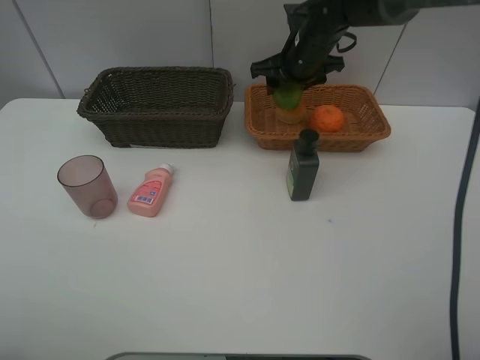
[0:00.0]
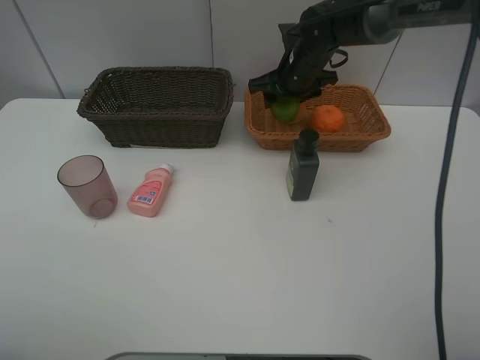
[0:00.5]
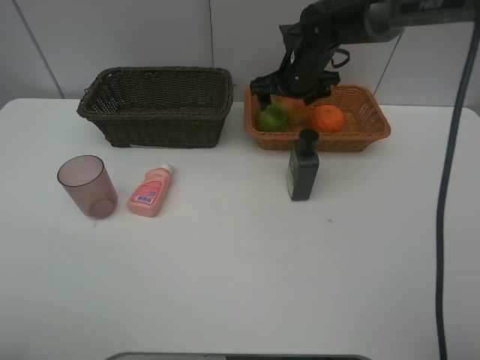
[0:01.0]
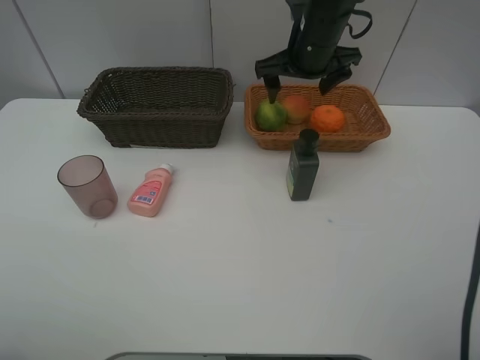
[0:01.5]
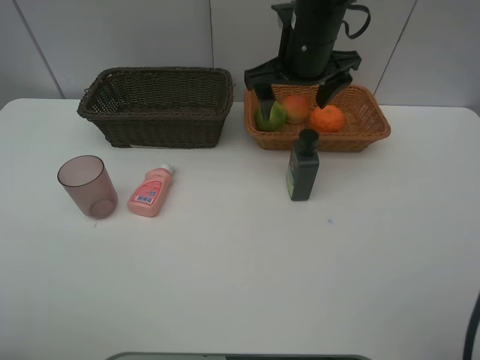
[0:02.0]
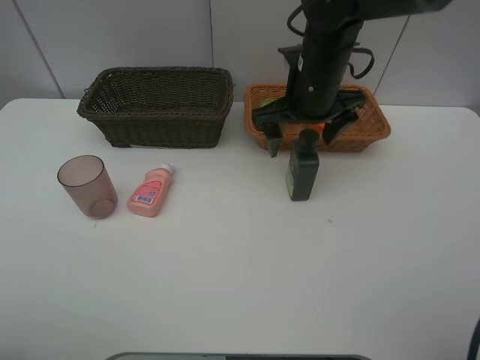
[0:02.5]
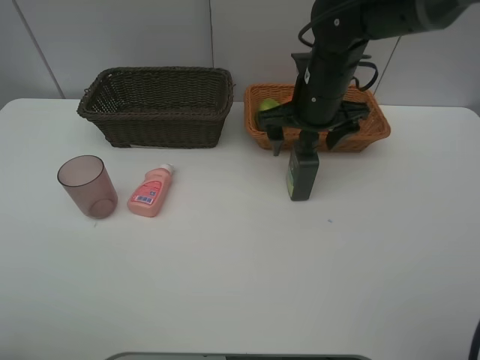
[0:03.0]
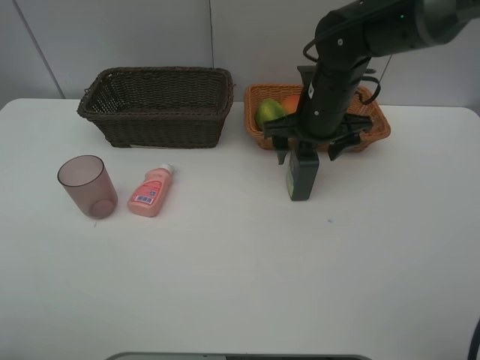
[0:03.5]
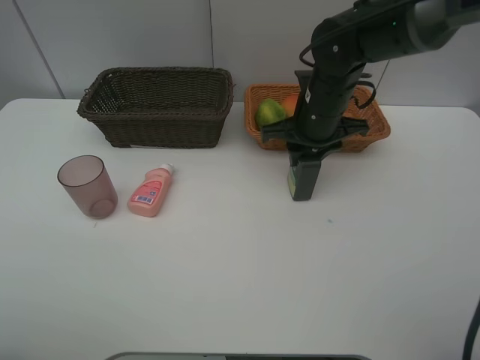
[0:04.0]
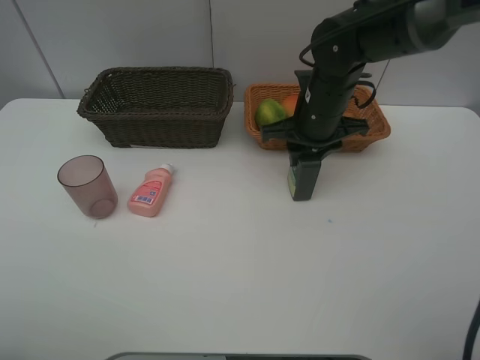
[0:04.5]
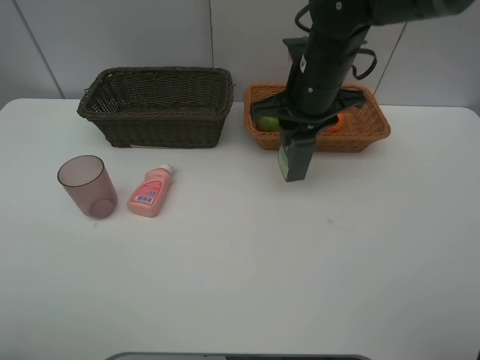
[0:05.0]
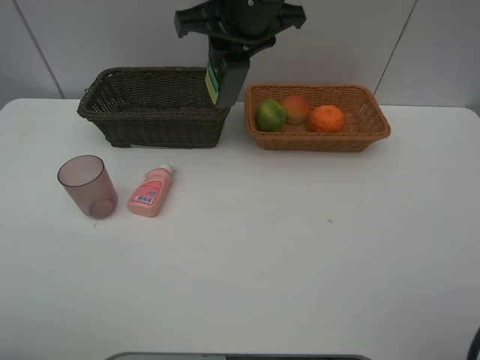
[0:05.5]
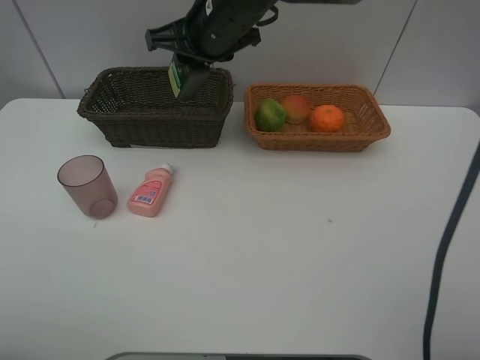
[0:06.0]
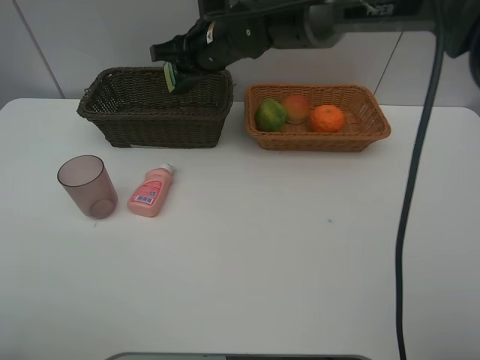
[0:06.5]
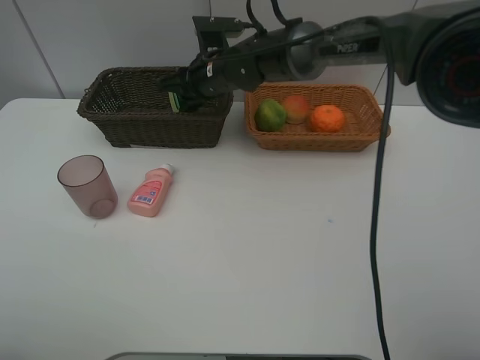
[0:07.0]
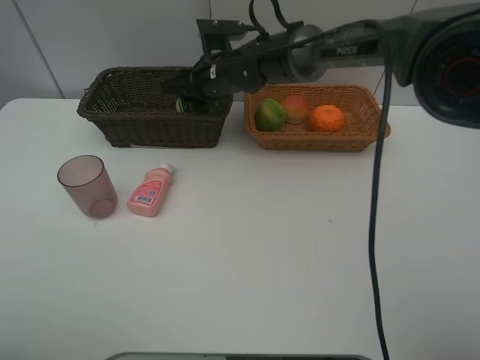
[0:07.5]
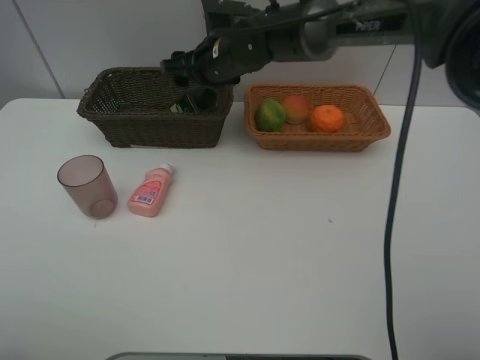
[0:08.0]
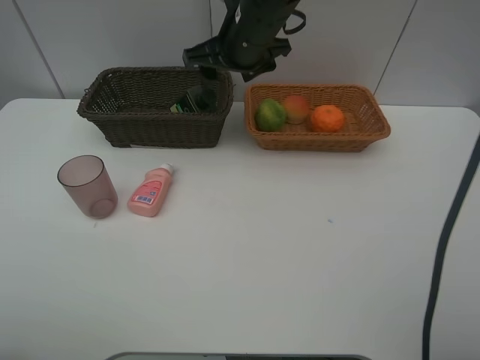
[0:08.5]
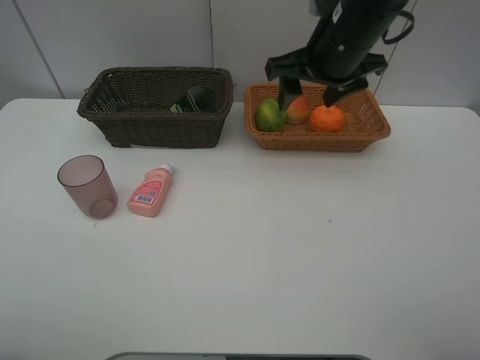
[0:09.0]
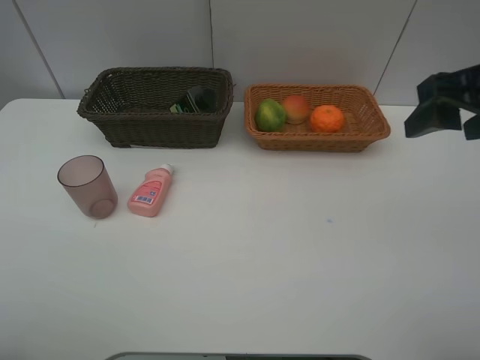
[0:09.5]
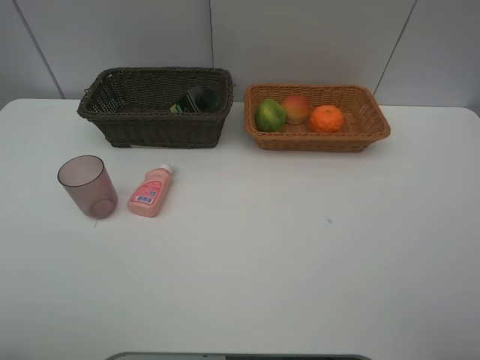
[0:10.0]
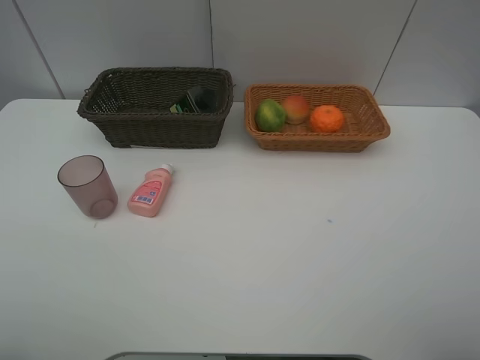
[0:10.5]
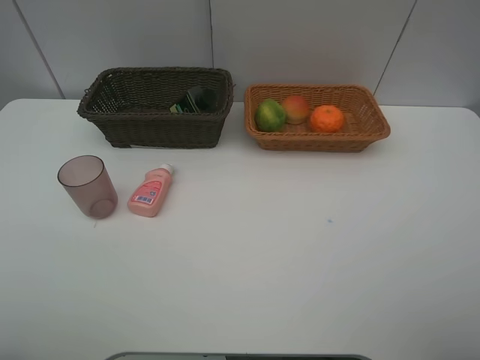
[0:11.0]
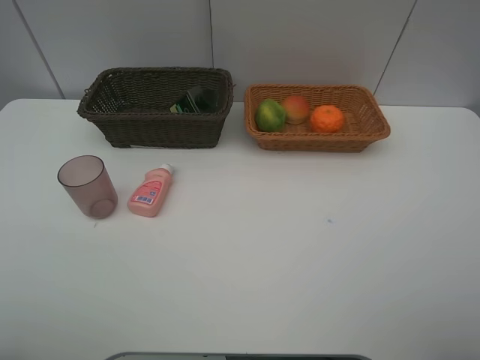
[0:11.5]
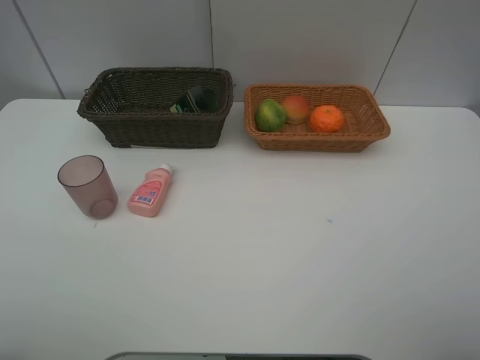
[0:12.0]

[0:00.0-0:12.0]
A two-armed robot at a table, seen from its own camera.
Task of the whole recording: place multiple objects separately in different baskets.
0:00.0 to 0:02.0: The right gripper shifts approximately 10 cm backward and upward, and opens up.
0:02.0 to 0:04.0: The right gripper shifts about 10 cm downward, and closes up.
0:04.0 to 0:06.0: The right gripper shifts approximately 15 cm to the left and upward.
0:06.0 to 0:08.0: The right gripper shifts roughly 5 cm downward, and opens up.
0:08.0 to 0:10.0: The right gripper moves backward, to the right and upward, roughly 50 cm.

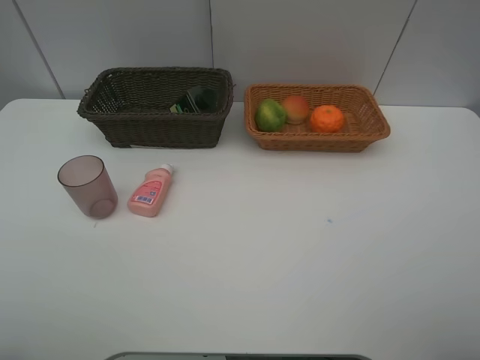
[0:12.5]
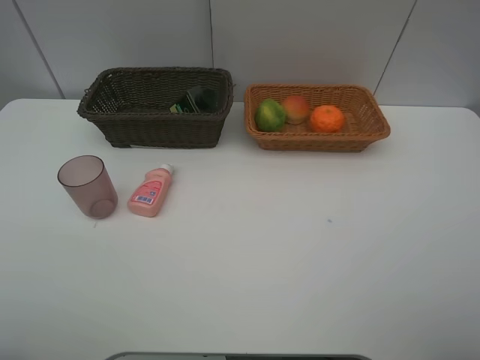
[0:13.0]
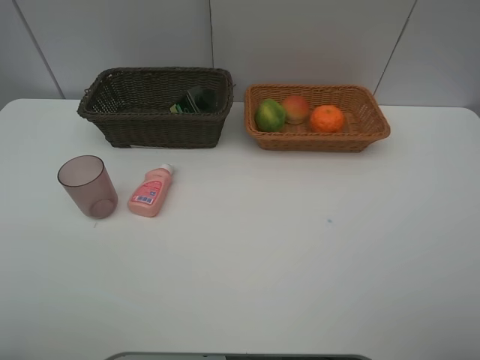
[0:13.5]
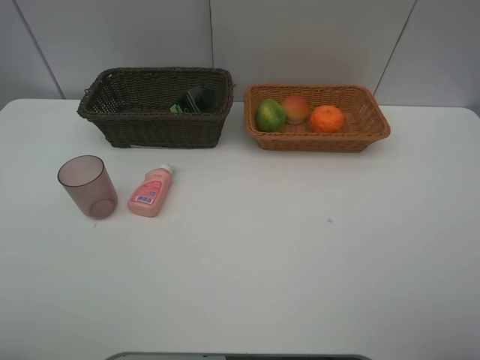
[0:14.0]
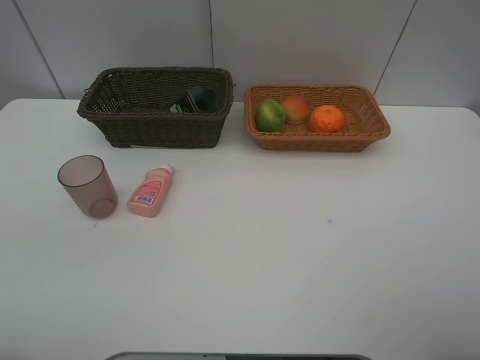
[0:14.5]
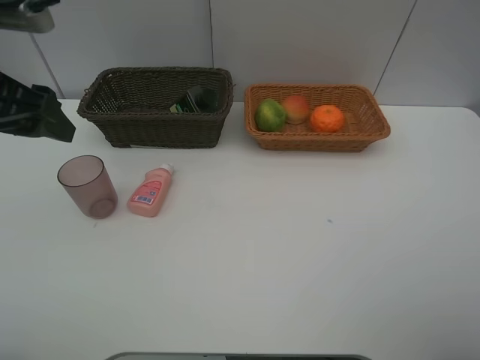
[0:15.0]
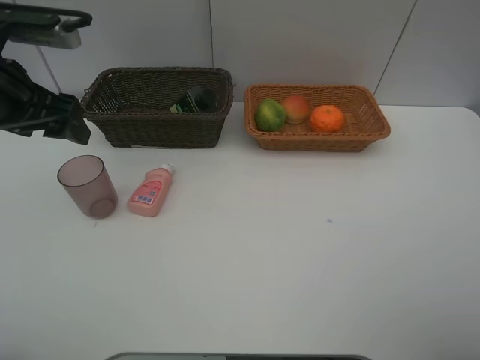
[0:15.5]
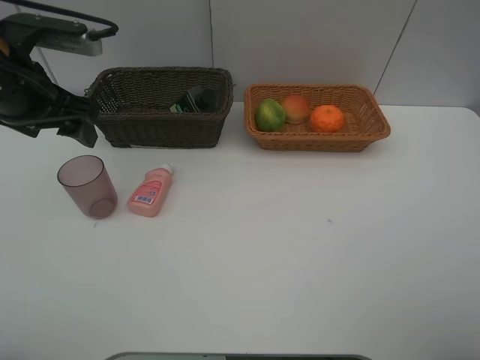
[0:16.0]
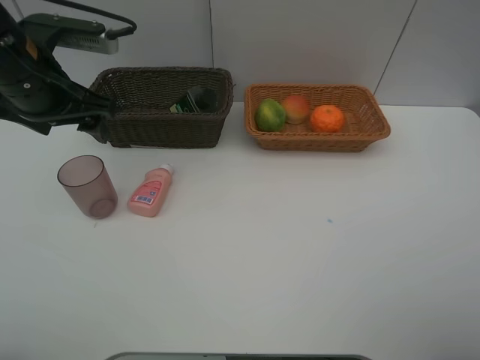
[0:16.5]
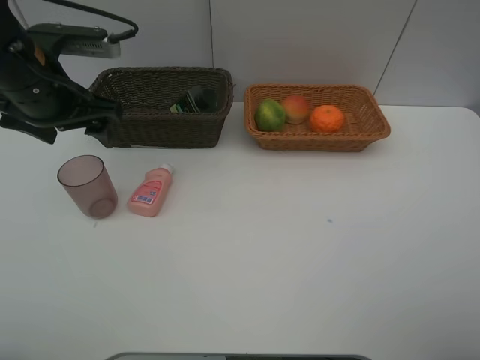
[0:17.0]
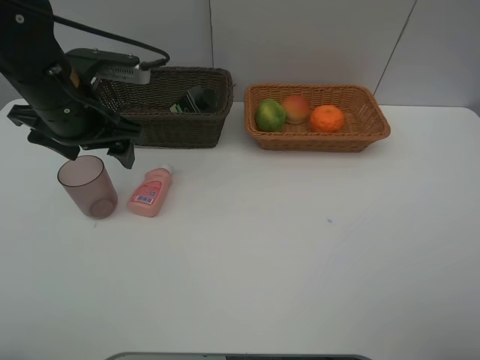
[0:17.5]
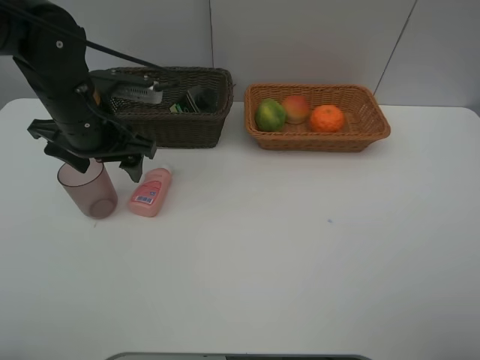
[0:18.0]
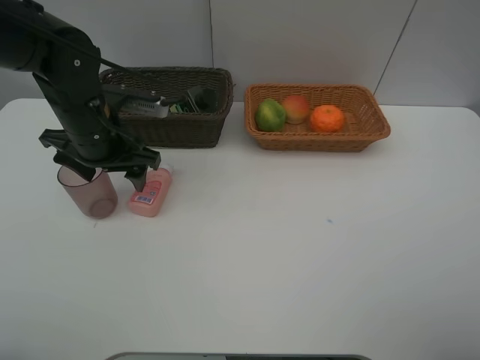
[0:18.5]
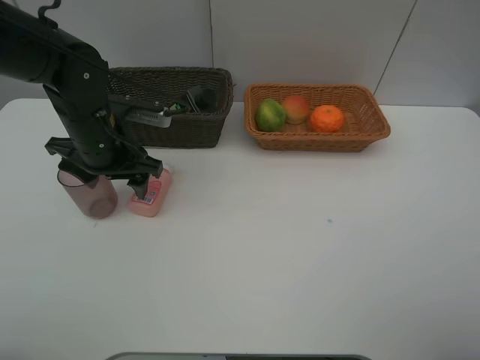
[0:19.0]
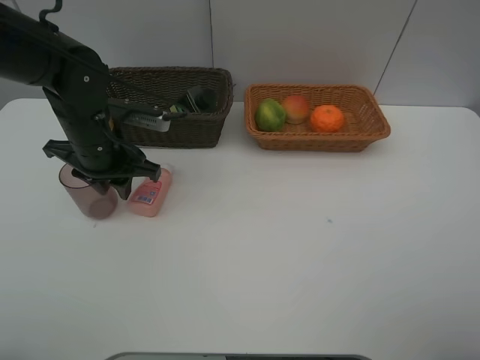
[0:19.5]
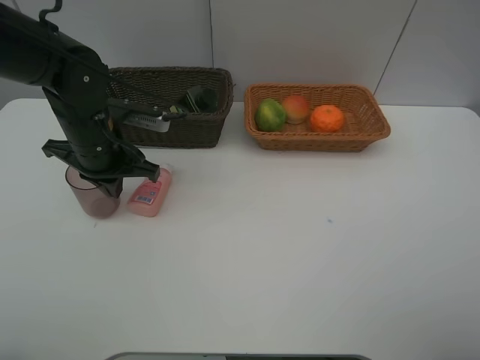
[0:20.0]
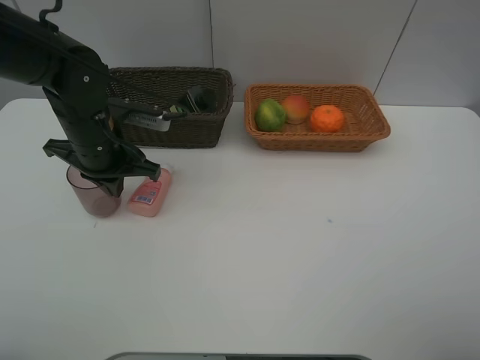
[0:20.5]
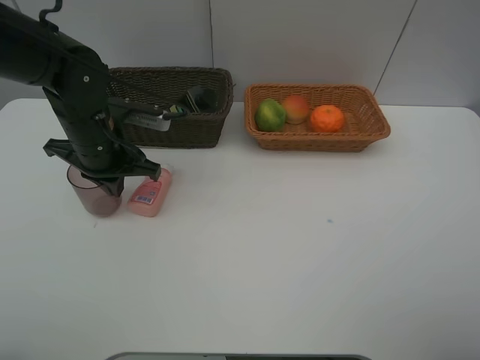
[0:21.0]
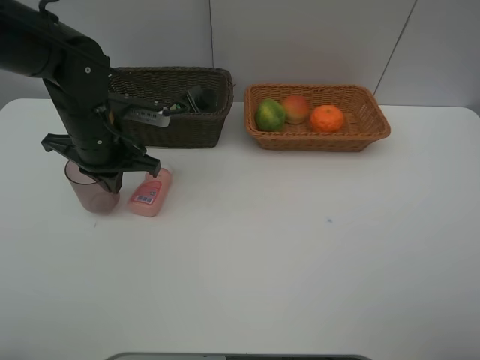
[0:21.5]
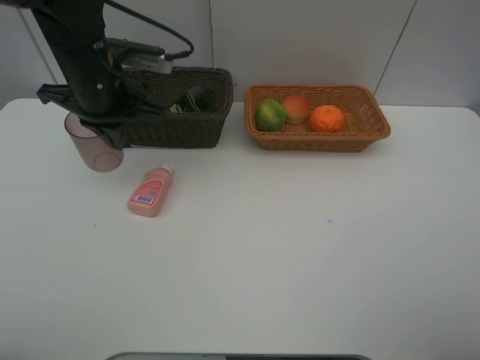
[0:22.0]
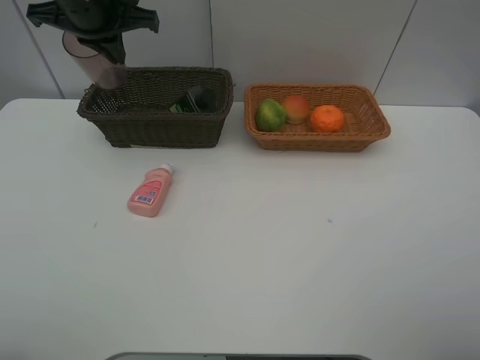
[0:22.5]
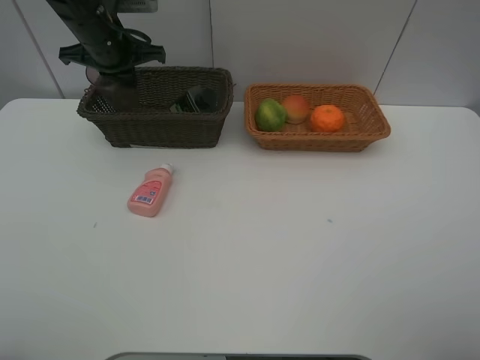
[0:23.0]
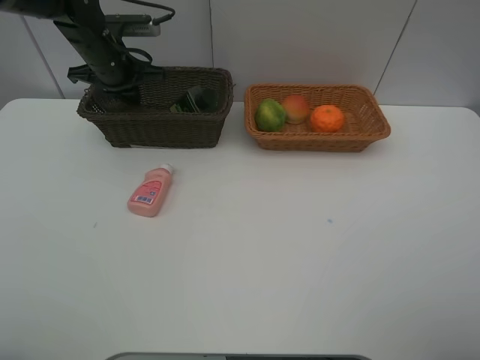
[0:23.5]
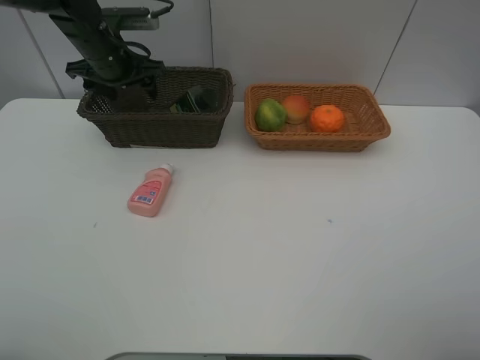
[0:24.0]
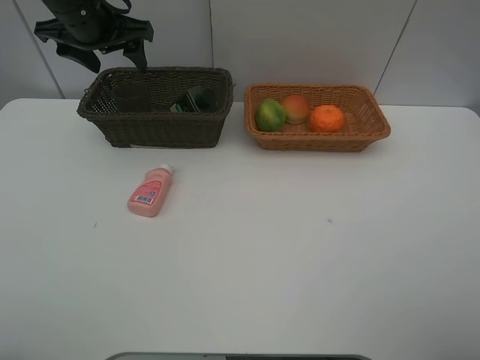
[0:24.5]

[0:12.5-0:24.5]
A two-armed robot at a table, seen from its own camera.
Task of the whole recording: place multiple objects separately in different baskets.
0:14.5 to 0:16.5: The left gripper heads forward, downward and to the right, covering about 15 cm.
0:16.5 to 0:18.5: The left gripper is displaced downward by about 10 cm.
0:18.5 to 0:20.5: The left gripper closes its fingers.
0:20.5 to 0:22.5: The left gripper travels upward and forward by some 15 cm.
0:22.5 to 0:24.5: The left gripper reaches some 10 cm downward, then returns, and opens its fingers.

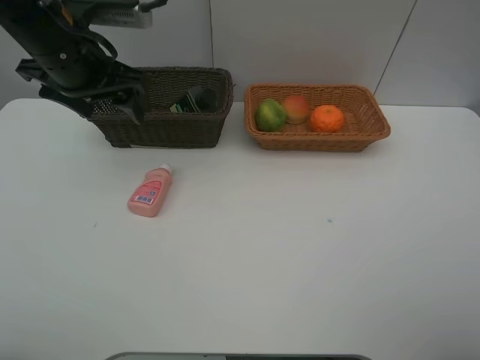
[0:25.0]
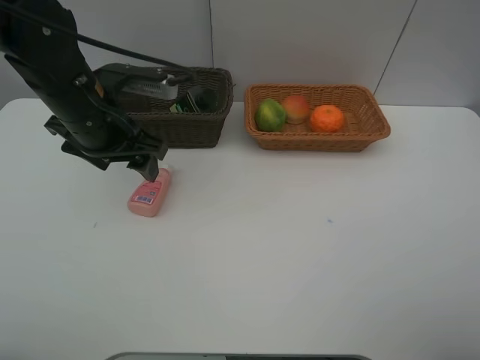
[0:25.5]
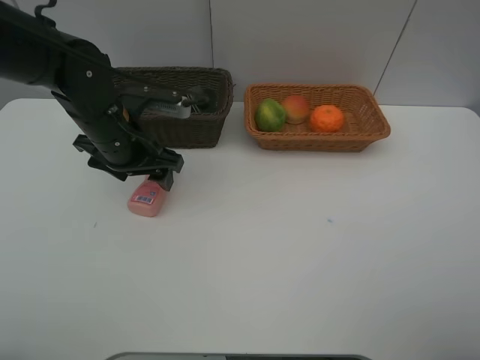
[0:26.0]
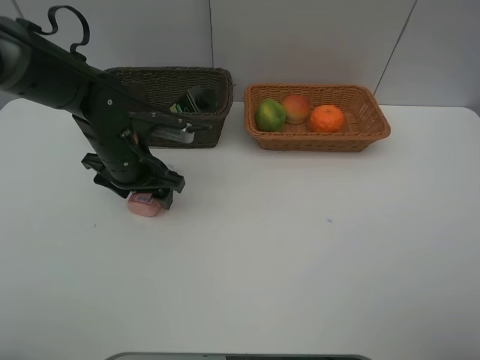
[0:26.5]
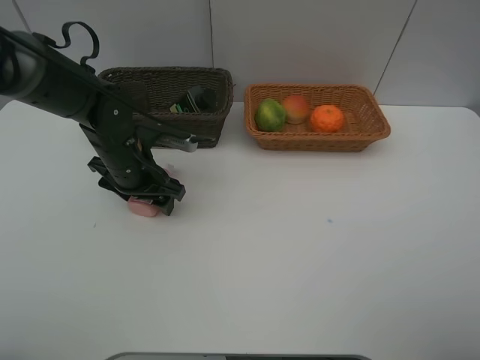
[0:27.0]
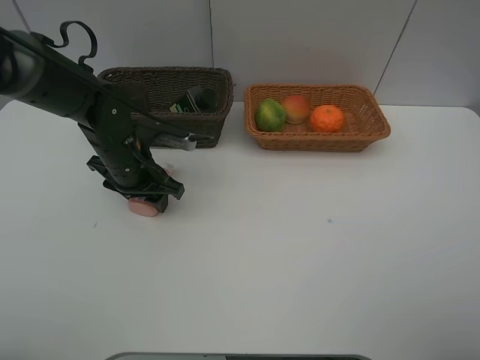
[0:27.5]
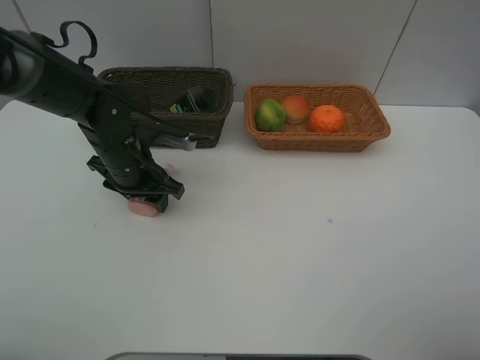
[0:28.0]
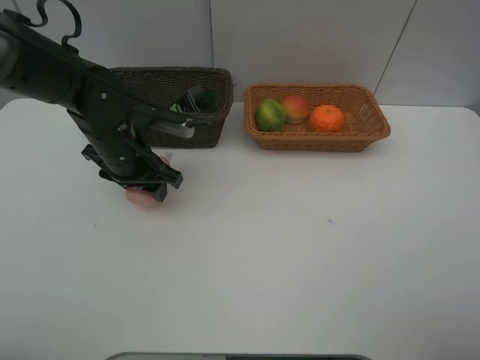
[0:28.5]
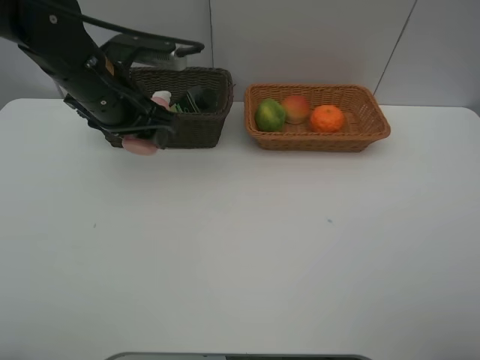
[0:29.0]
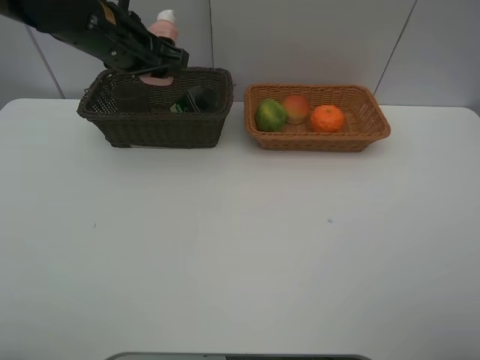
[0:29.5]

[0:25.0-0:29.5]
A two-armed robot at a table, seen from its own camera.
Task of the whole recording: place multiple objects separately in different baskets.
0:25.0 to 0:27.0: The left gripper heads downward, covering some 15 cm.
0:27.0 to 0:29.5: The left gripper goes roughly 15 cm upward.
